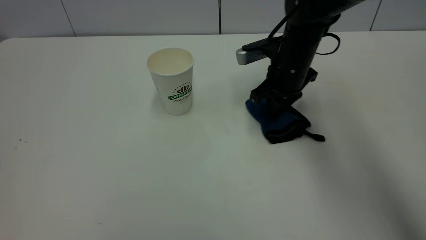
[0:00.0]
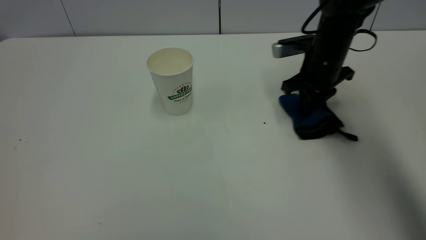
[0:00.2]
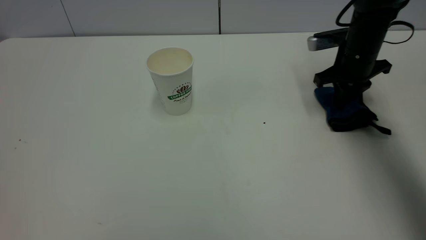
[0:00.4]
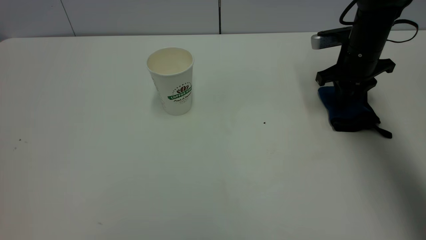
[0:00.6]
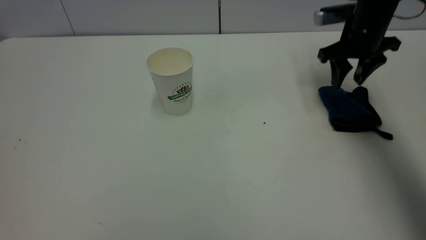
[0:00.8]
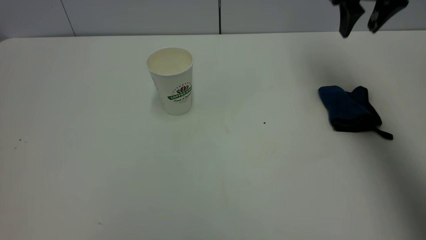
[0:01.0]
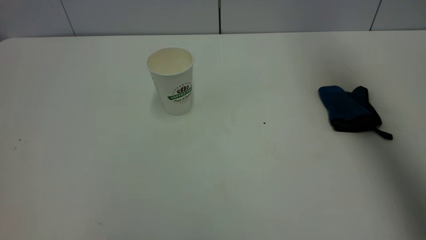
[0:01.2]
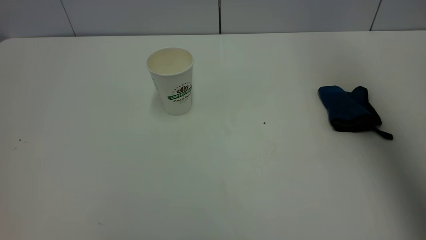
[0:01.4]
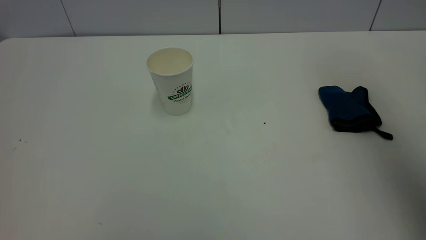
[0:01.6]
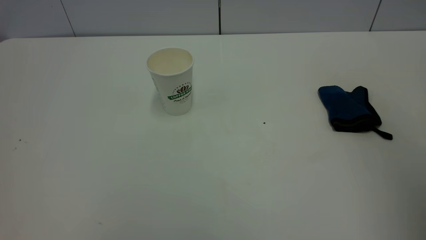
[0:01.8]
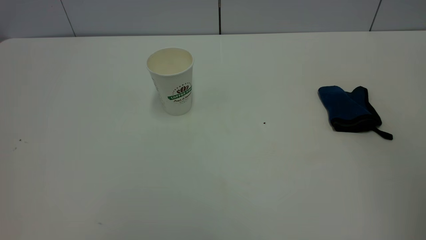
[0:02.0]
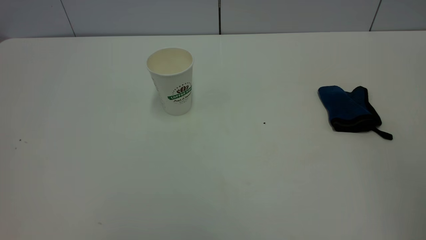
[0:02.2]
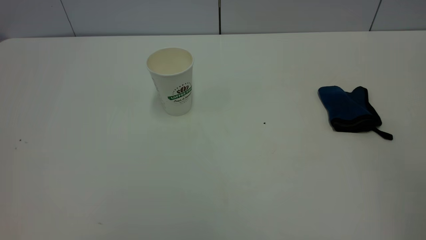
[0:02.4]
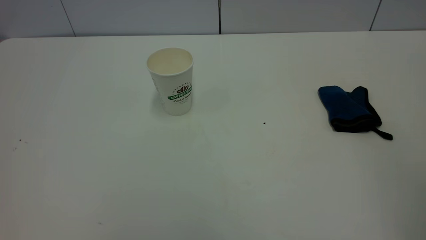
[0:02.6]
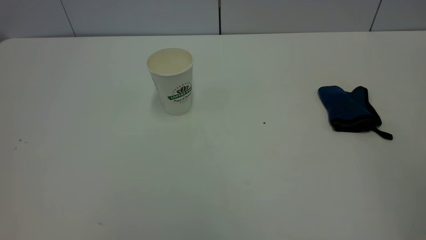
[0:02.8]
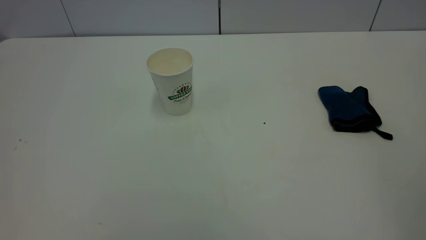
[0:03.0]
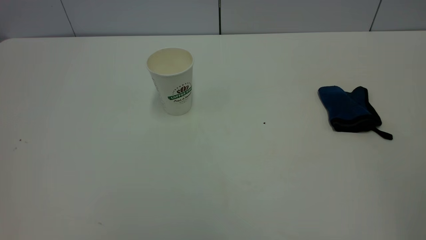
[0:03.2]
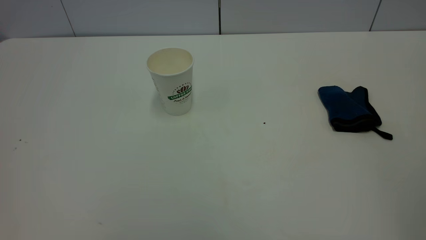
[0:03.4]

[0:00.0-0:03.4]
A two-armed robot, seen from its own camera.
Task of the whole recording: the left gripper pick up the fallen cup and place it upright, the right gripper grasp the blue rag and wipe the tea stain on the table, the right gripper put the blue rag back in its original position.
0:00.0 to 0:01.6: The right gripper heads upward and backward, covering roughly 40 cm, and opens its fingers.
0:01.6 to 0:03.4: The right gripper goes approximately 25 cm backward.
